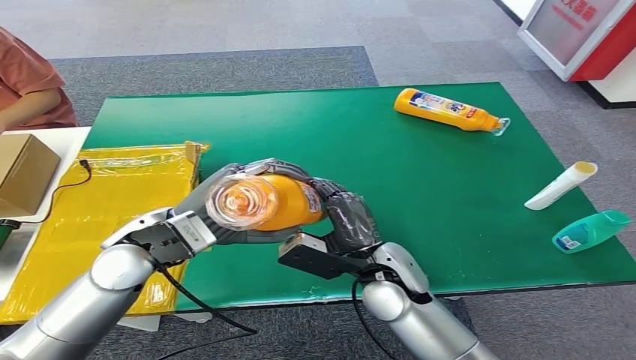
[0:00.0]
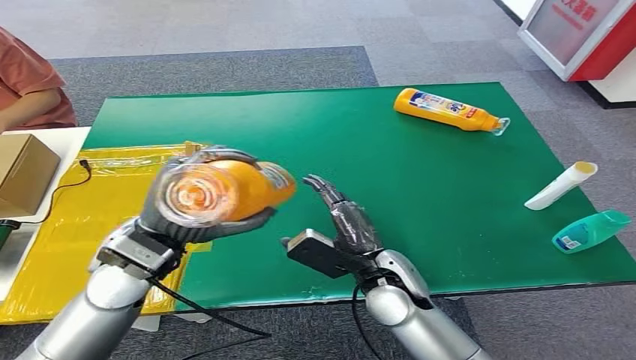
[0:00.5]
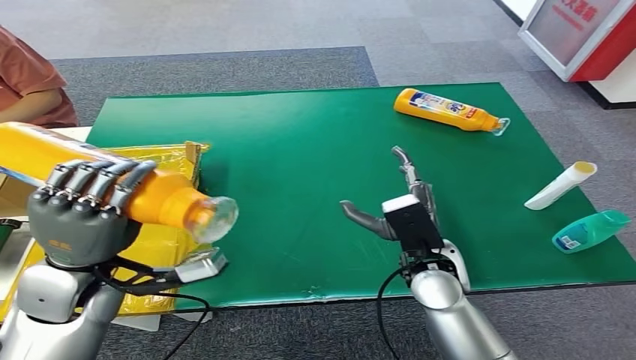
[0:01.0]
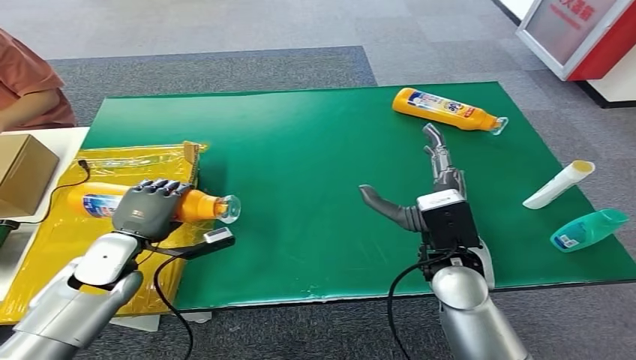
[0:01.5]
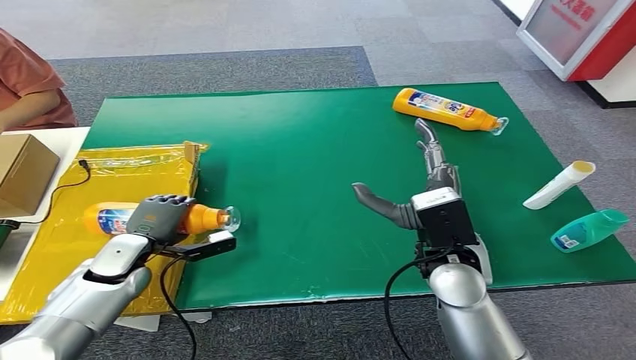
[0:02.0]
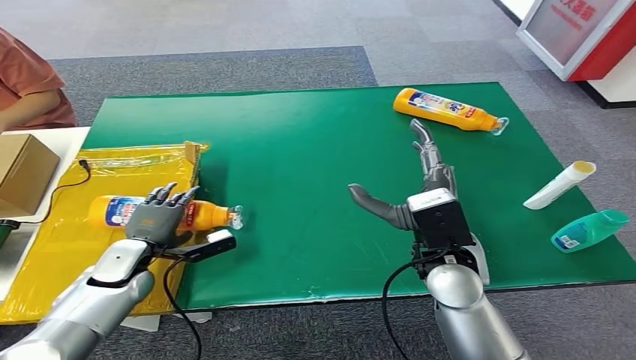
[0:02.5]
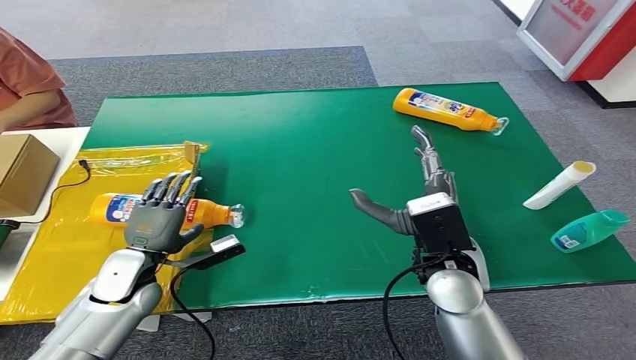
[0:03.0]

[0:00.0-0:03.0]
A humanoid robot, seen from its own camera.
Step, 0:00.0 to 0:03.0: Turn the bottle to the front side.
